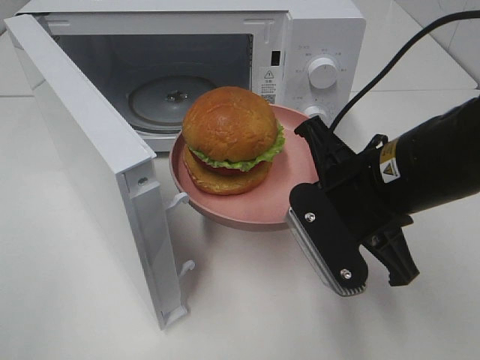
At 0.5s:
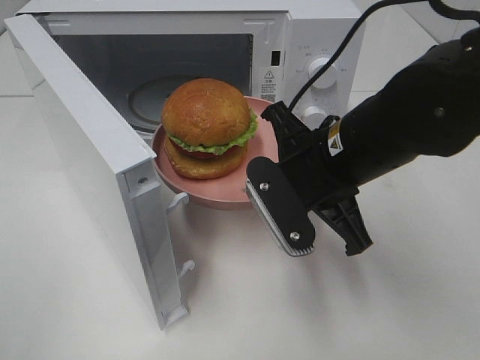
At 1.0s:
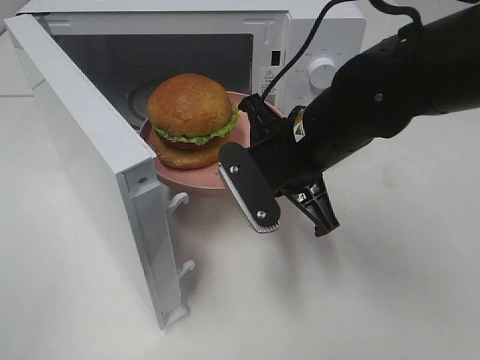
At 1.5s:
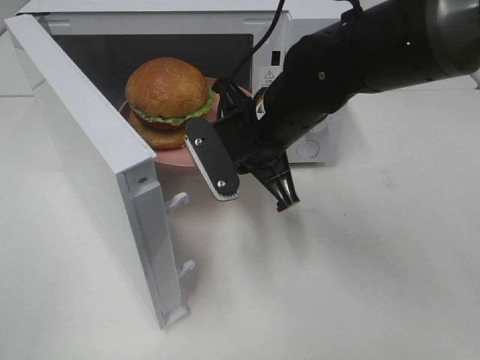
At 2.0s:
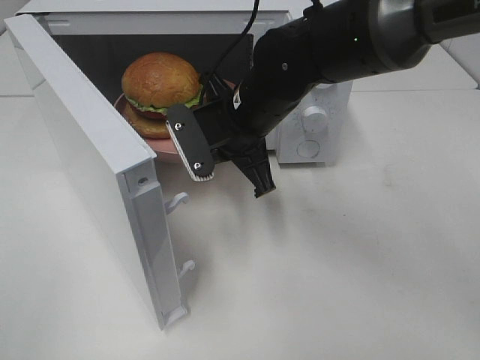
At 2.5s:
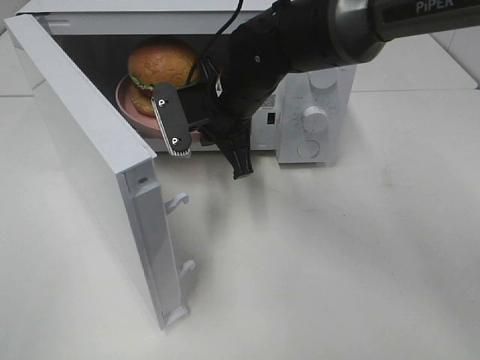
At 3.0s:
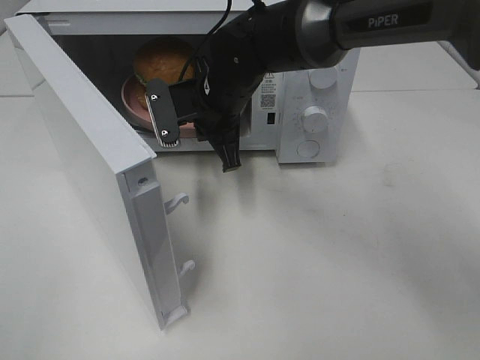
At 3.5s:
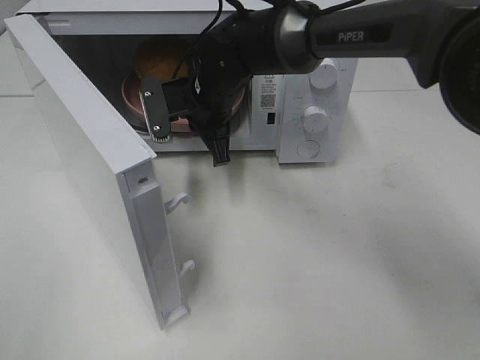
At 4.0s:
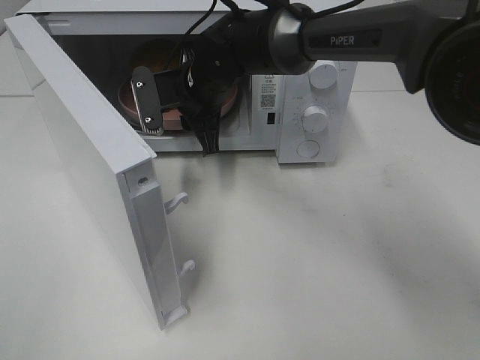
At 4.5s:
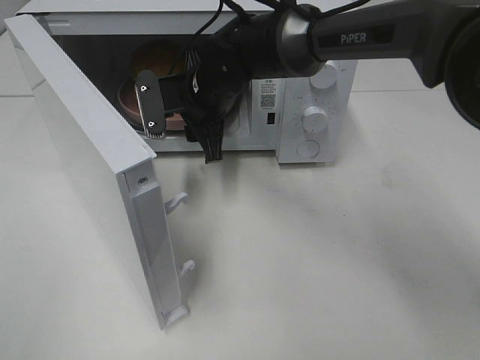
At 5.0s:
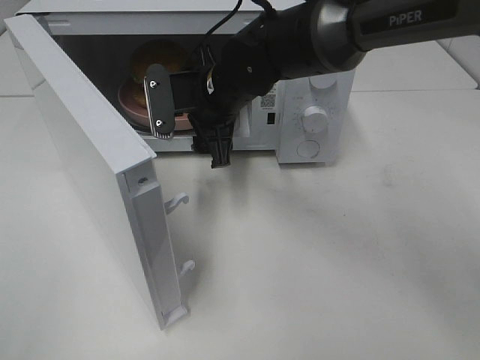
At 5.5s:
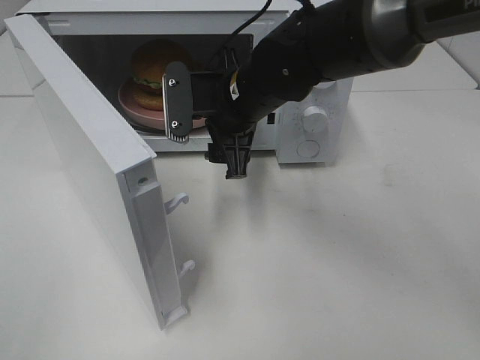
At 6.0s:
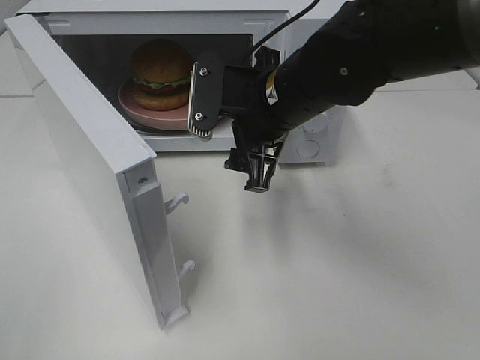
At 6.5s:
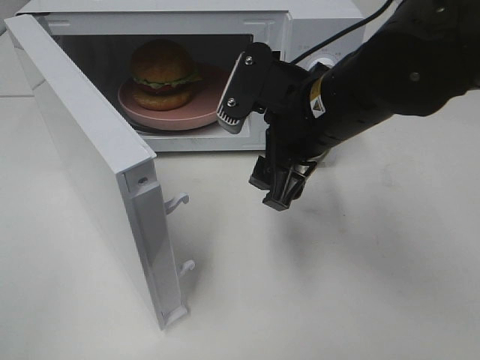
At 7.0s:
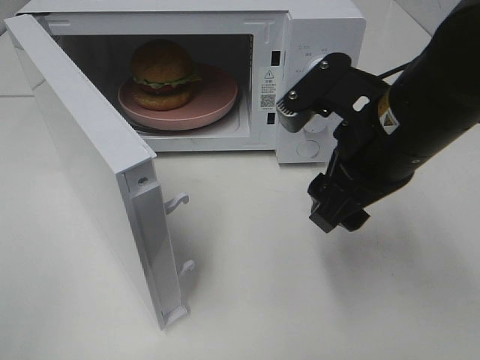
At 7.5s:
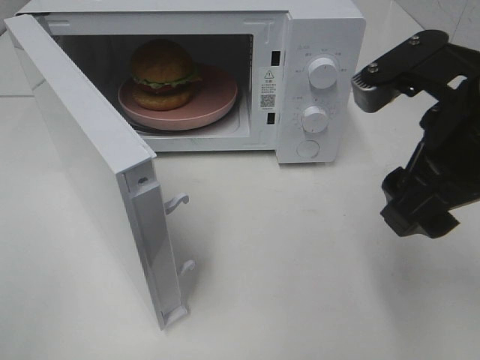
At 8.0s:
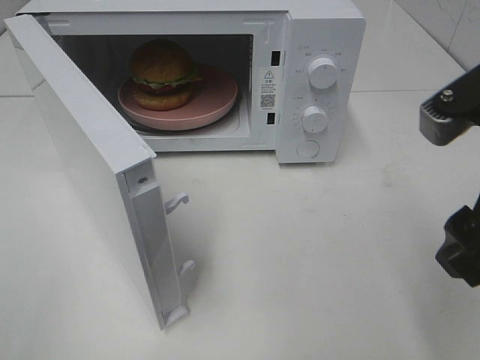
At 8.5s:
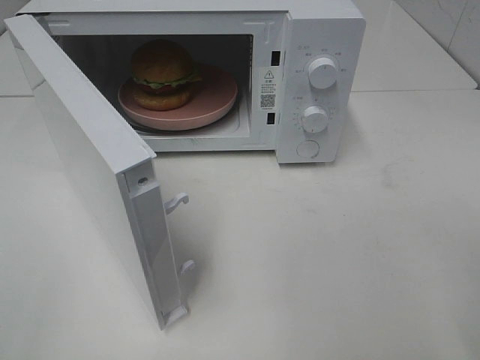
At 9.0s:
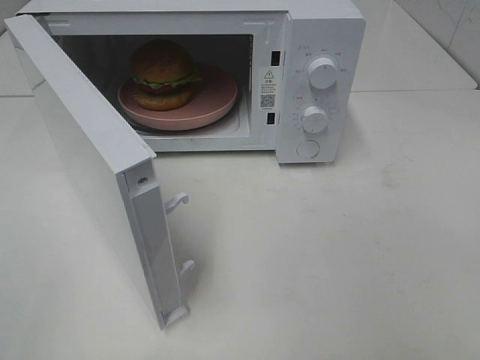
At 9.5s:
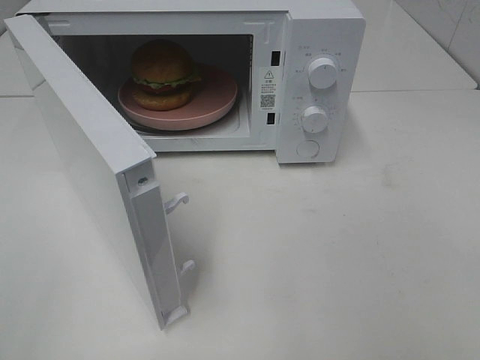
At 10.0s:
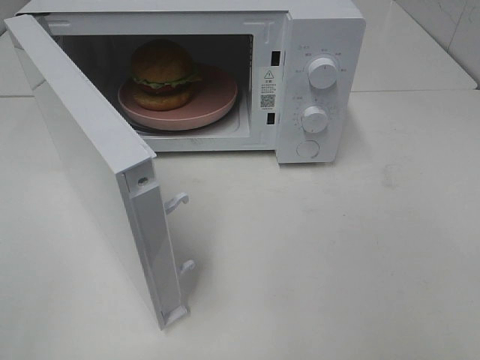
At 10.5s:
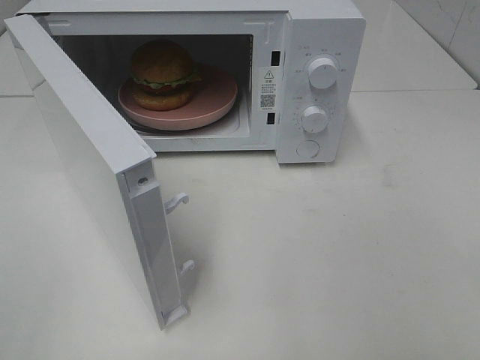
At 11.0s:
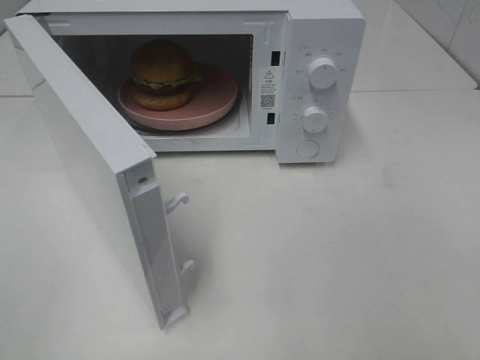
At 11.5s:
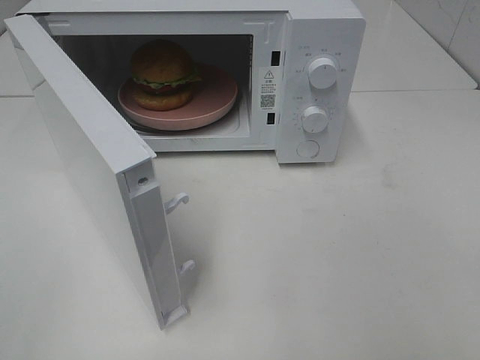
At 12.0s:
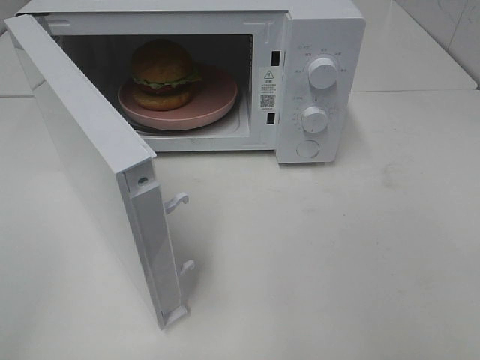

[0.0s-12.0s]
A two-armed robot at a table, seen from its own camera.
Task of the whole recording: Heat the burger.
Step, 0.0s to 4.0s: Right hand: place the plate in the microwave.
0.0s to 2.0s: The right gripper goes approximately 15 cm forward and to the left.
2.0s to 4.0s: The right gripper heads forward and to the left, covering roughly 10 cm, and opens up.
4.0s to 6.0s: The right gripper goes approximately 15 cm backward and to the right, and opens up.
6.0s to 8.0s: The right gripper shifts some 20 cm backward and to the right.
8.0s to 10.0s: The right gripper shifts some 20 cm backward and to the right.

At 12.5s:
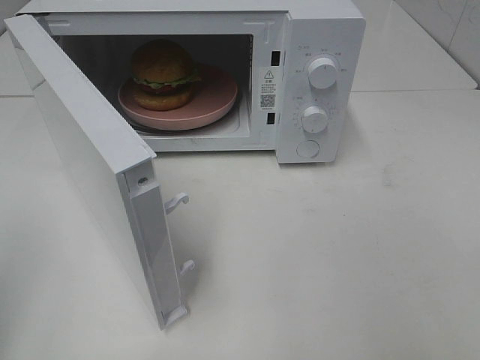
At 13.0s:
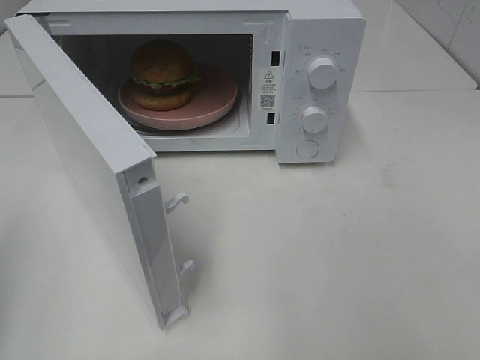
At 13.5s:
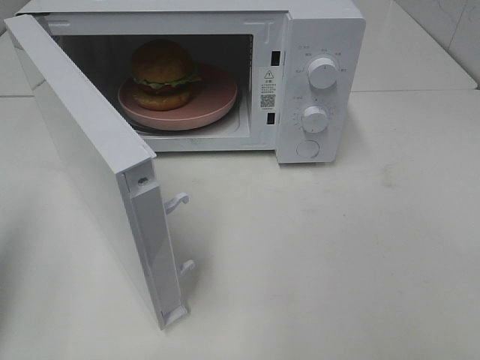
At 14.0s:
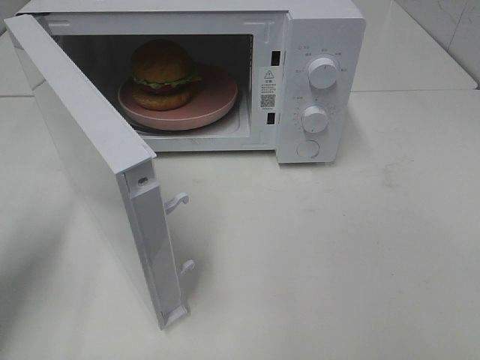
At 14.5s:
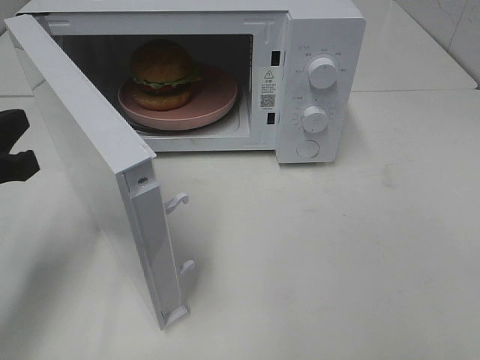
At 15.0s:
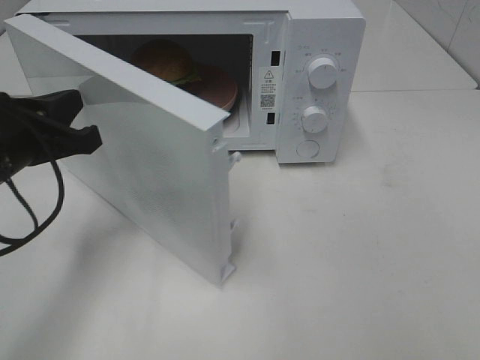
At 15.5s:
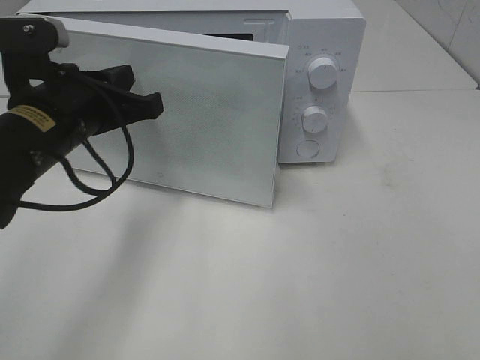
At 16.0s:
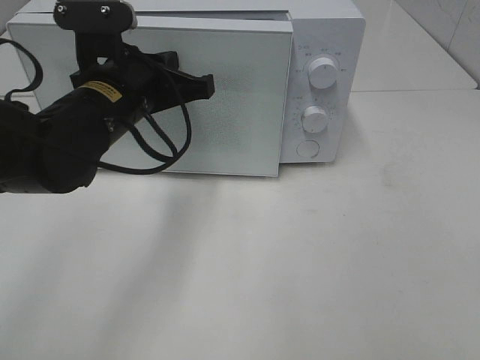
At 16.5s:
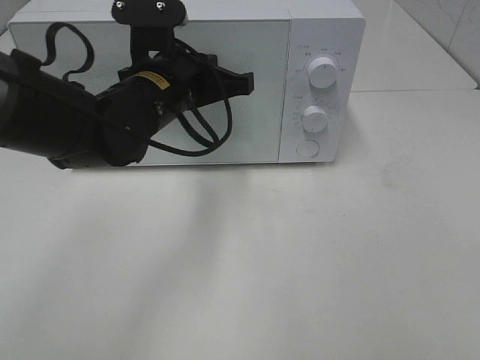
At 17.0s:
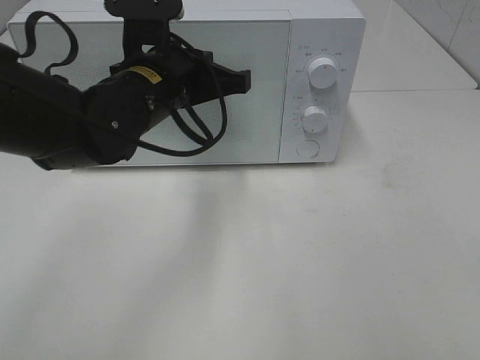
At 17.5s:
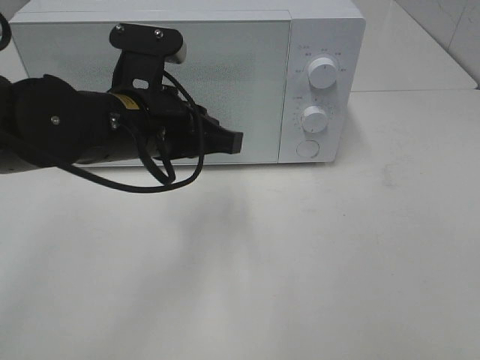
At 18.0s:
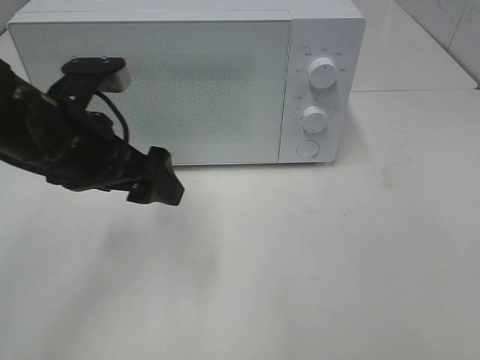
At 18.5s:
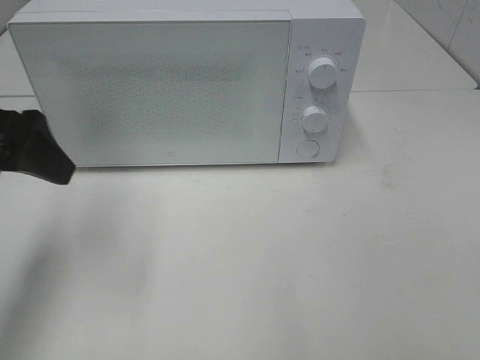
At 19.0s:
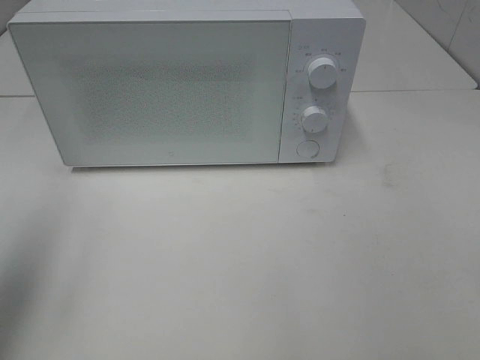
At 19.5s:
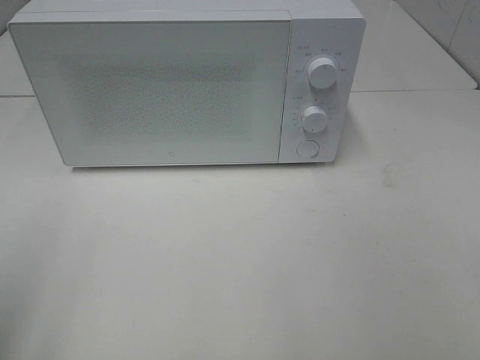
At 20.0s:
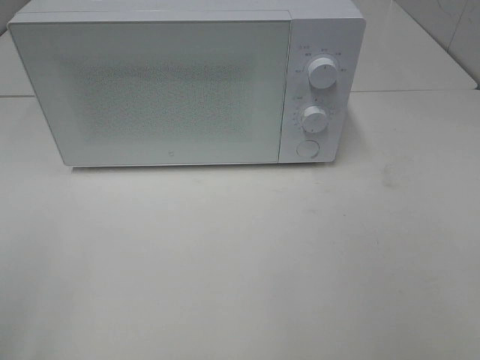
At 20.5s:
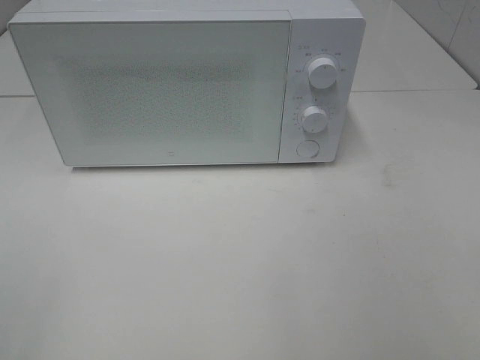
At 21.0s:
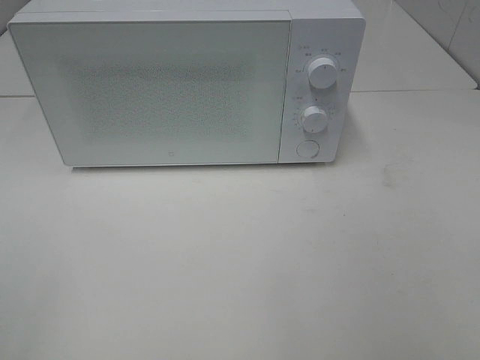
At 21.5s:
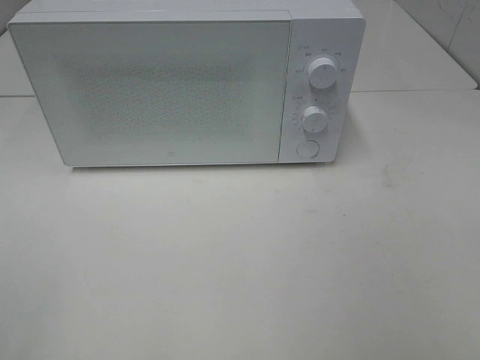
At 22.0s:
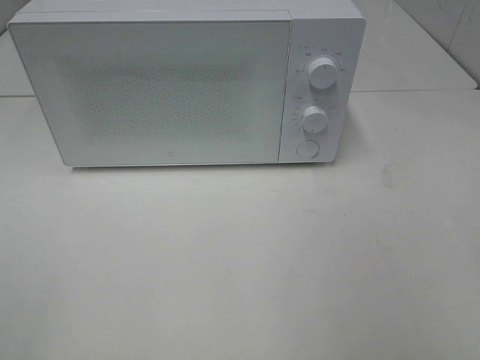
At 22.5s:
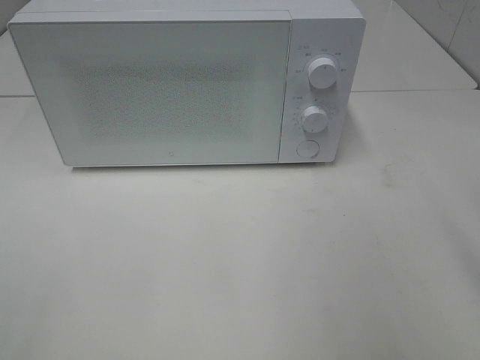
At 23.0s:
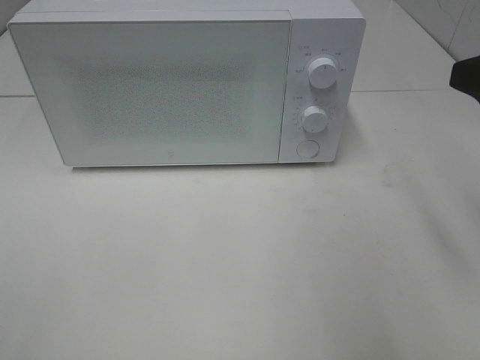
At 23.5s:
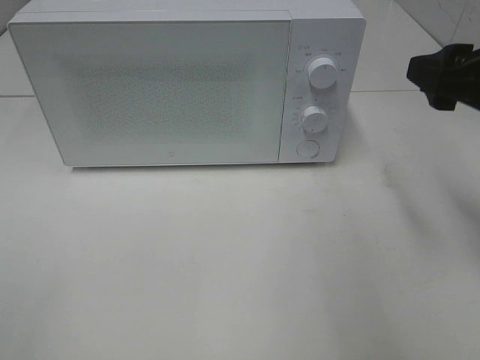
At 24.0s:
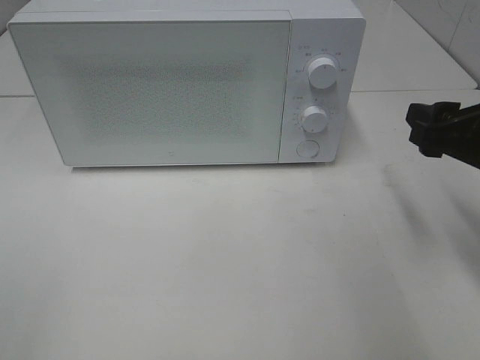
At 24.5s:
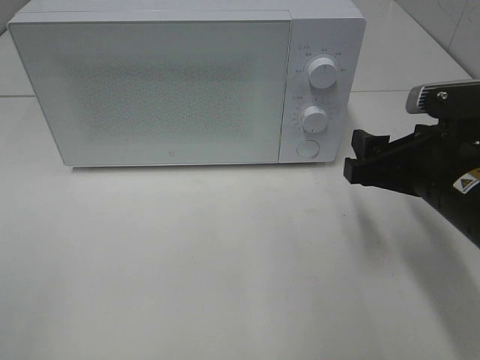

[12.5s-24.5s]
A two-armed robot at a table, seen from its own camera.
Task of the whole recording: Heat the burger.
Step, 12.5s to 17.0s: Left hand: close the microwave door.
12.5s to 14.5s: The left gripper travels forward, downward and to the right by some 20 cm.
14.5s to 16.5s: The left gripper is displaced to the right and forward by about 25 cm.
16.5s to 18.5s: The left gripper heads to the left, backward and upward, covering about 20 cm, and opens up.
18.5s to 20.5s: The left gripper is displaced backward by roughly 25 cm.
22.5s to 24.5s: The right gripper travels downward, forward and to the left by approximately 15 cm.

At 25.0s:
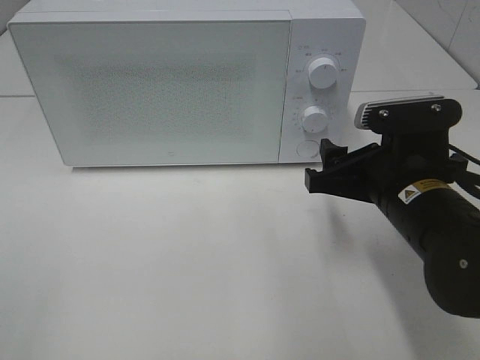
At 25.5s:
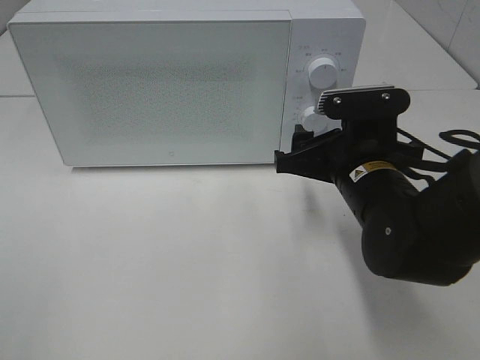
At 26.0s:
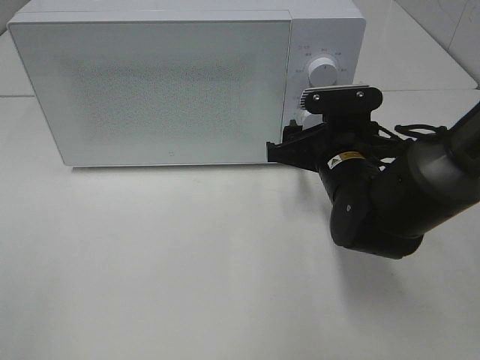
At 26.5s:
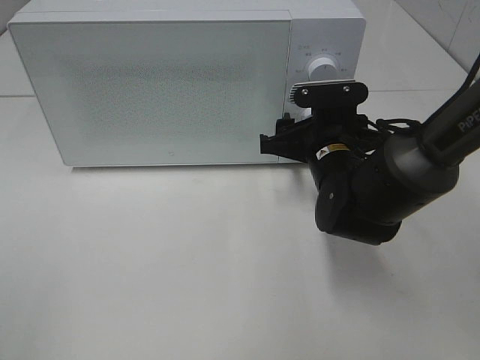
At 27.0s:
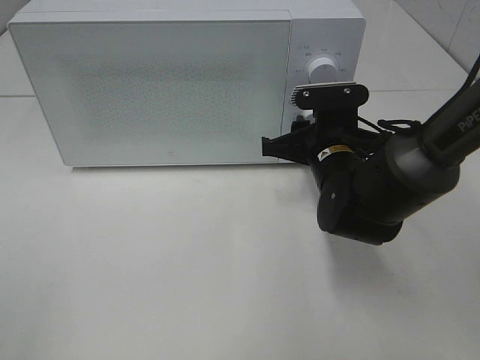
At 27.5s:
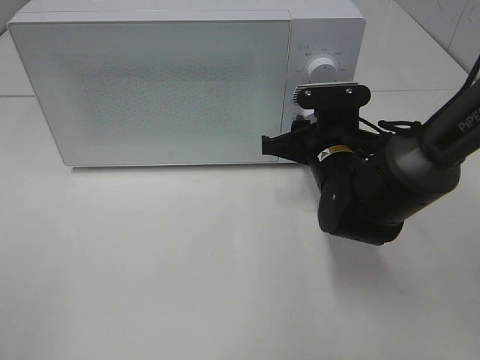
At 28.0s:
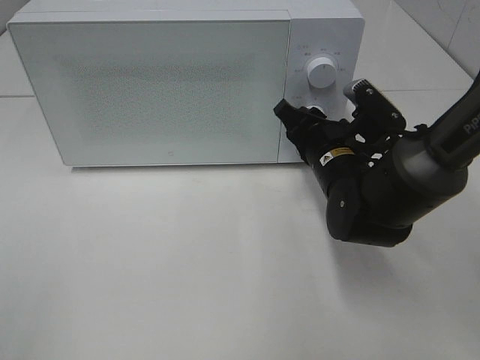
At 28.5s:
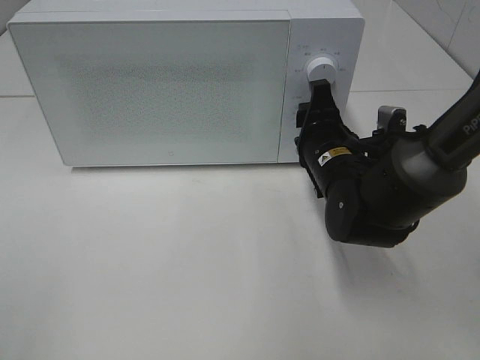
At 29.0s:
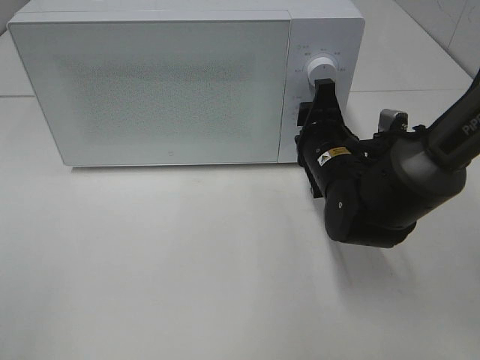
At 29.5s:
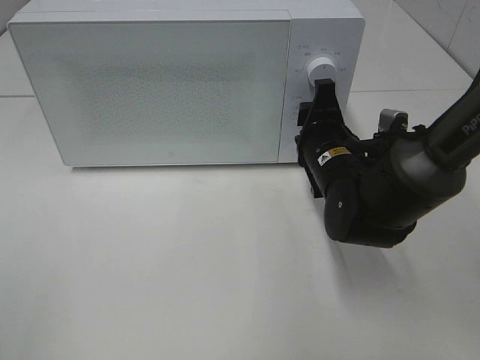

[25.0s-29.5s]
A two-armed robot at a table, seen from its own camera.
Task of the whole recording: Heat the burger.
25.0s to 27.0s: The right gripper heads forward, covering about 10 cm, and closes up.
